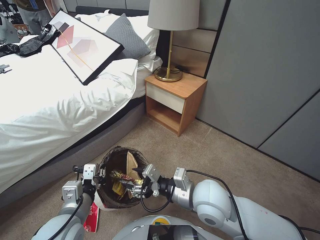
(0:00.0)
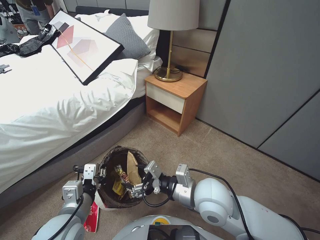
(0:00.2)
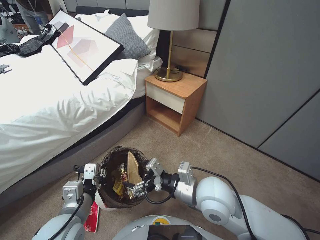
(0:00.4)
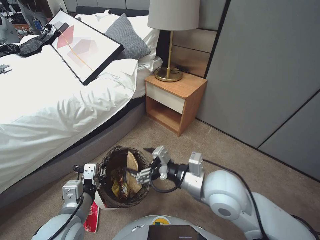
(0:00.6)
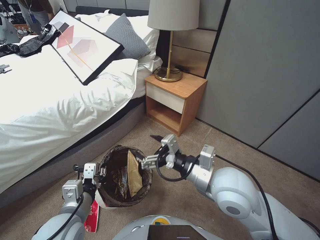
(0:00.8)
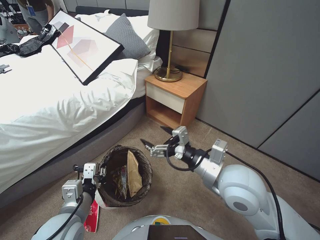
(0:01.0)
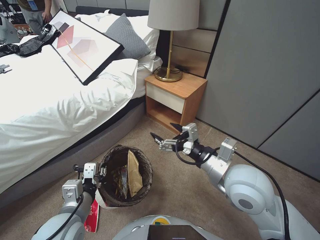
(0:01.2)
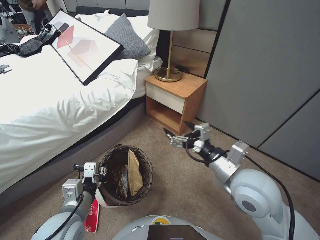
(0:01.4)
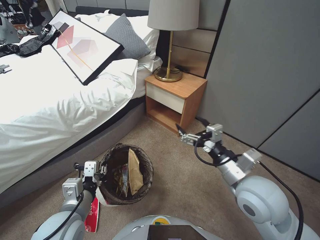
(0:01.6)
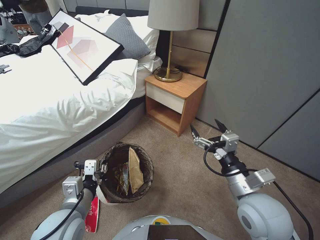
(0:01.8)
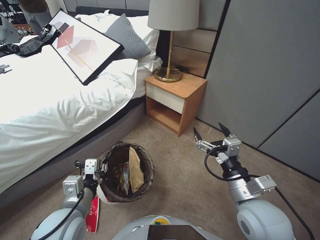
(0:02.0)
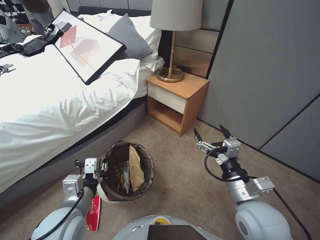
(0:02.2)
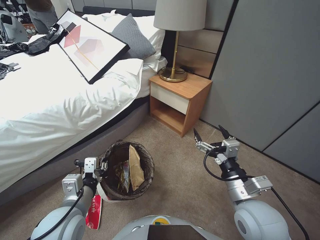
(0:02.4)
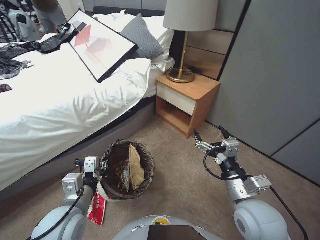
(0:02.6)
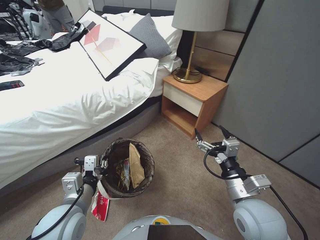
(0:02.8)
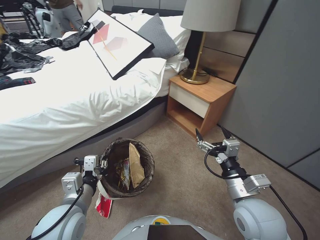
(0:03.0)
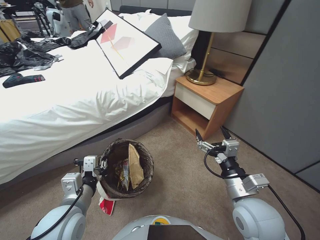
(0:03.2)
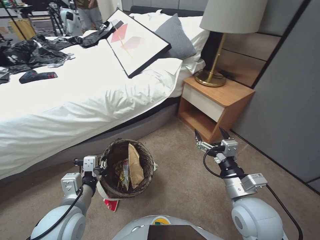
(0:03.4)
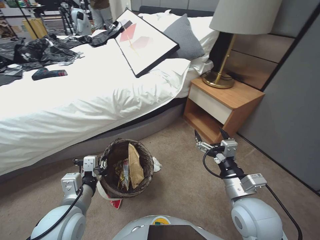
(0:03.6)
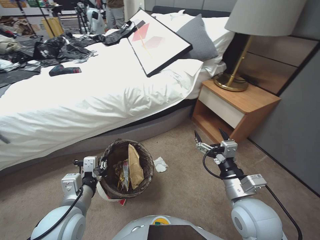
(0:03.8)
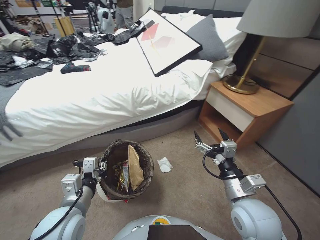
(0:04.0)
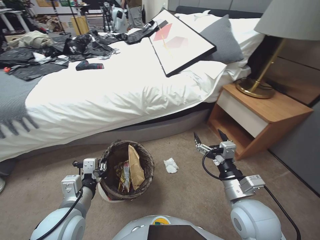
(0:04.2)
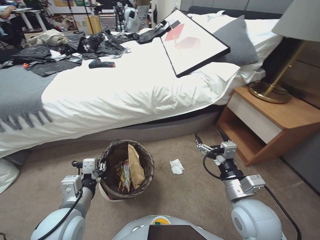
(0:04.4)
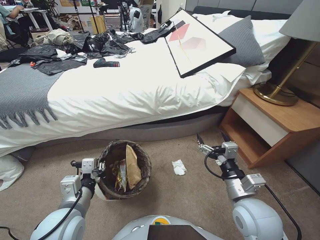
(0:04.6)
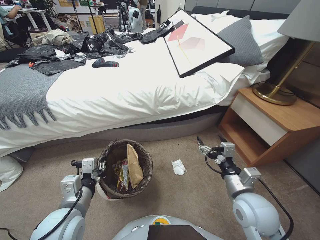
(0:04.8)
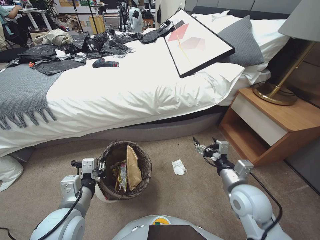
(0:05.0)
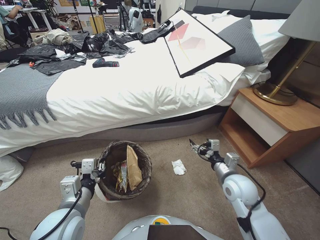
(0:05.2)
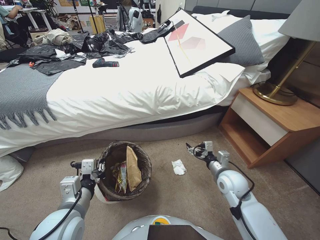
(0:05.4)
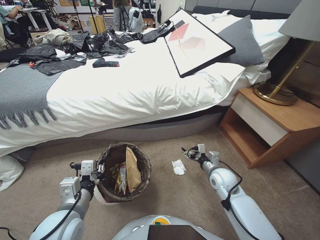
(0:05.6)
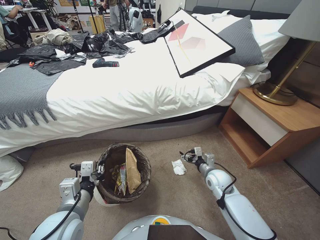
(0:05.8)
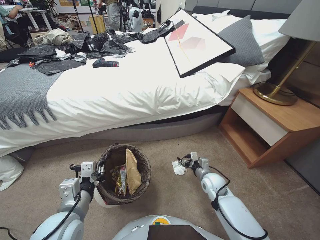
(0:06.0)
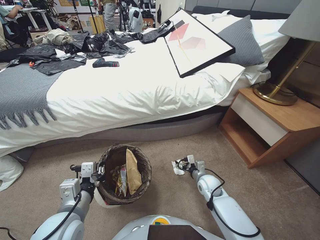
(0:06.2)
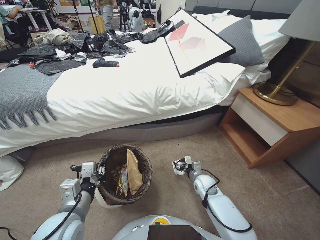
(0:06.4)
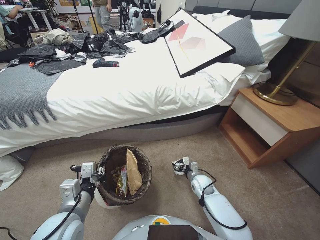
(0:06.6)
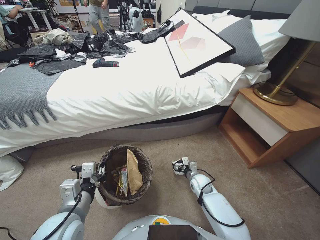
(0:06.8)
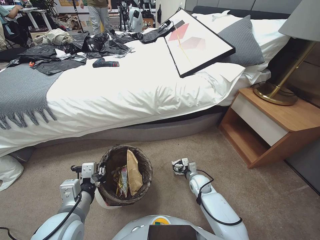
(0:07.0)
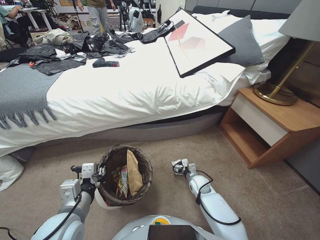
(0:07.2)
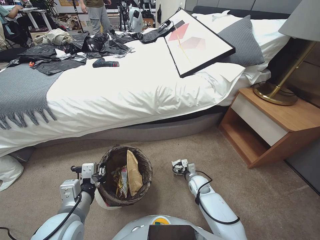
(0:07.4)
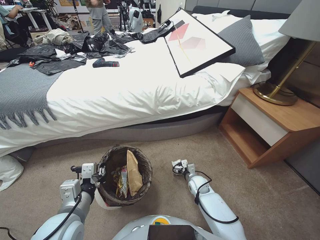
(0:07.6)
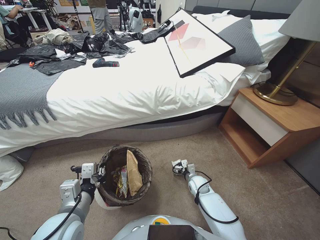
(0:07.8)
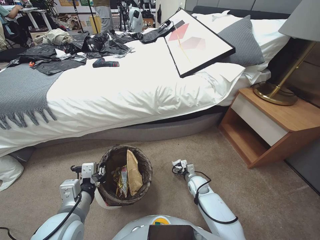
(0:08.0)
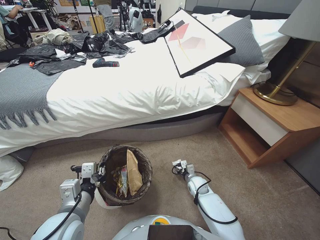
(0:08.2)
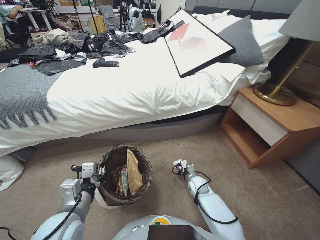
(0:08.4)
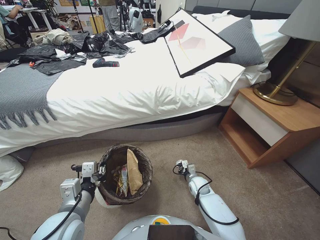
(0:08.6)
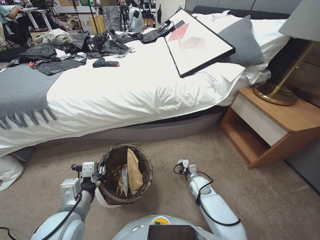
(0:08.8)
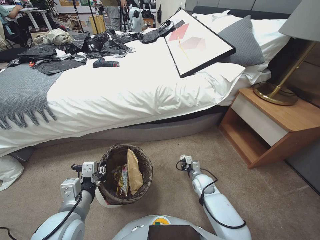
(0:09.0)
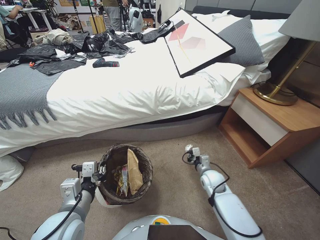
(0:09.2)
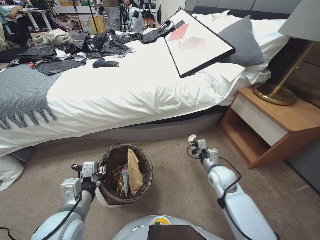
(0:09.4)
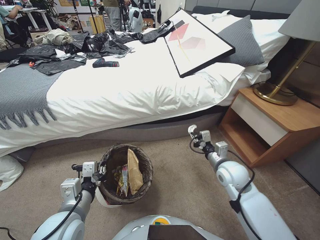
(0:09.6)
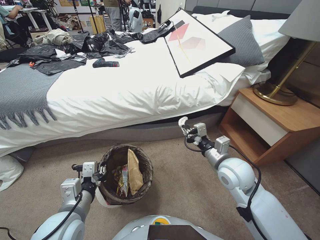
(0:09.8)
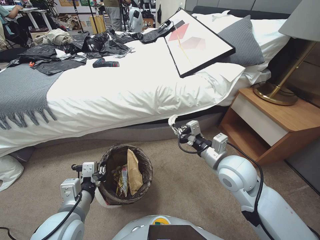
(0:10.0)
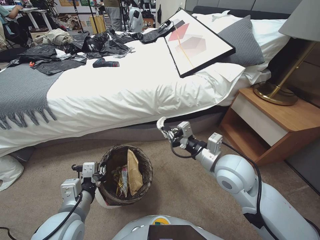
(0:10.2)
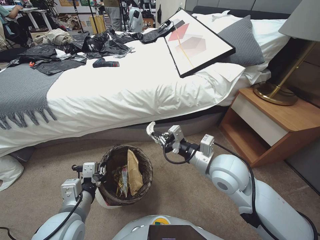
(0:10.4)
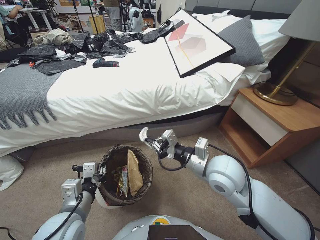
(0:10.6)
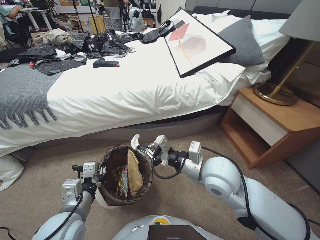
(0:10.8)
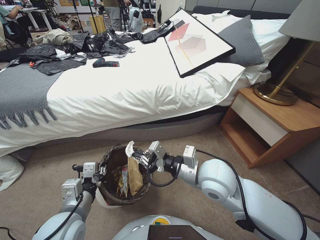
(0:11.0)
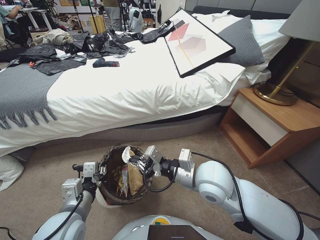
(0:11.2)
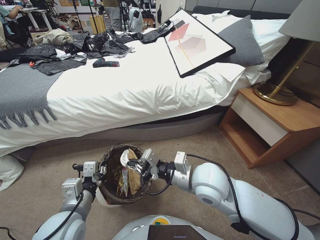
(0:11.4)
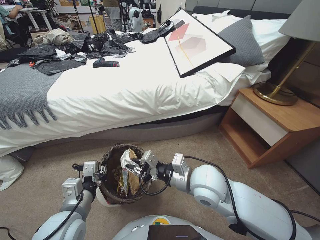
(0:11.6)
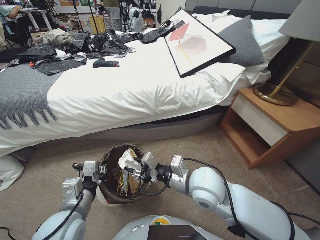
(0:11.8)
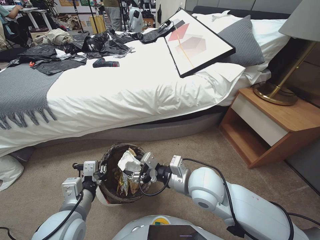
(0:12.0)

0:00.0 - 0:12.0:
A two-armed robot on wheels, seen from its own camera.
Task of the whole recording: Pick up the trash bin, then pick up the garbage from the floor and place it into the trash bin.
0:00.0 - 0:01.6: The right gripper is displaced to the right and upward by roughly 10 cm, and opens.
0:01.6 - 0:03.0: The right gripper heads downward, covering roughly 5 cm.
0:04.4 - 0:06.0: The right gripper moves downward and forward, some 25 cm.
0:06.0 - 0:07.6: The right gripper moves downward, about 10 cm.
0:07.6 - 0:09.0: The right gripper closes up.
0:09.0 - 0:10.4: The right gripper travels upward by about 35 cm.
0:10.4 - 0:12.0: The right gripper heads to the left, covering roughly 5 cm, and opens its fingers.

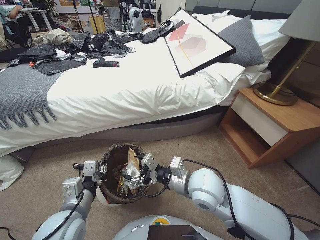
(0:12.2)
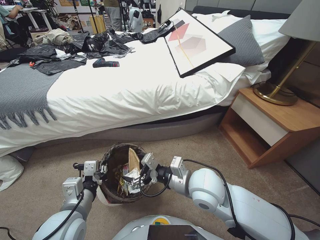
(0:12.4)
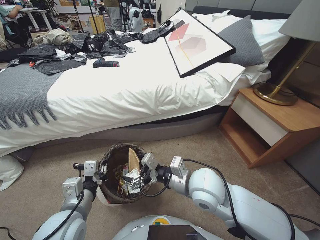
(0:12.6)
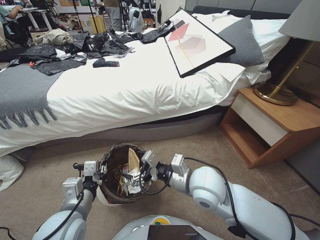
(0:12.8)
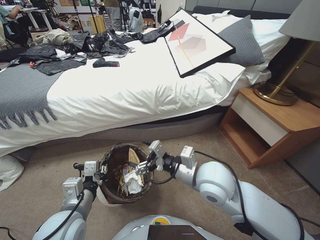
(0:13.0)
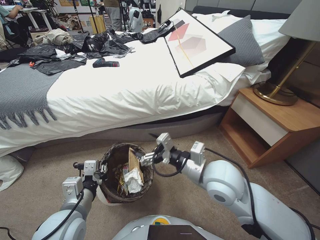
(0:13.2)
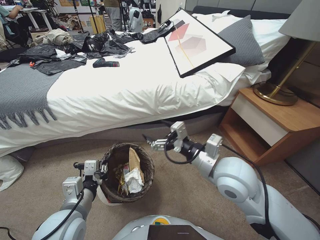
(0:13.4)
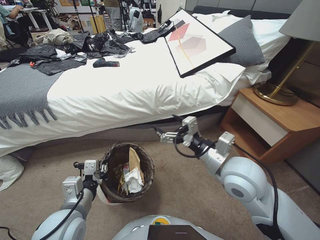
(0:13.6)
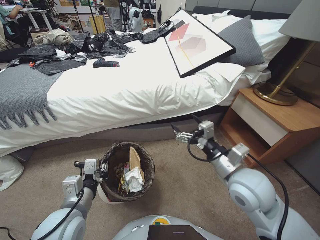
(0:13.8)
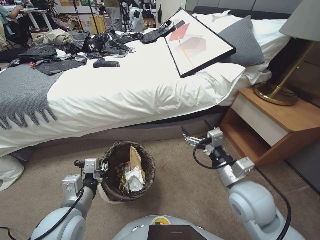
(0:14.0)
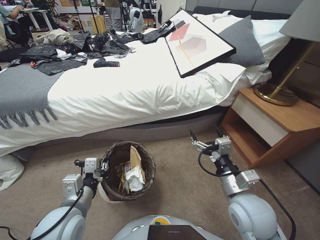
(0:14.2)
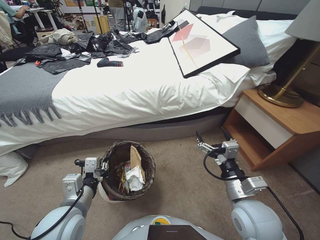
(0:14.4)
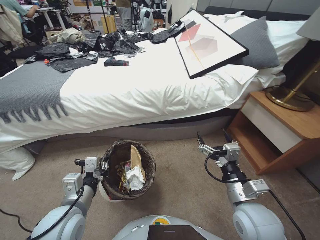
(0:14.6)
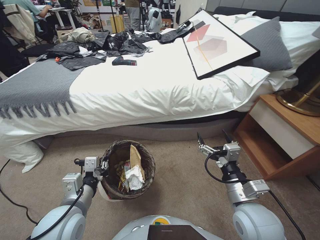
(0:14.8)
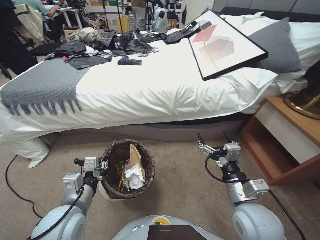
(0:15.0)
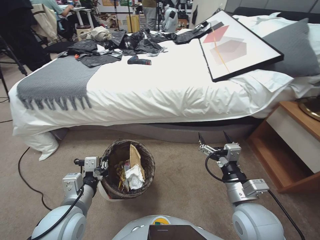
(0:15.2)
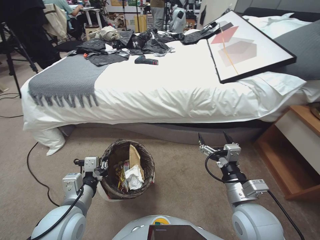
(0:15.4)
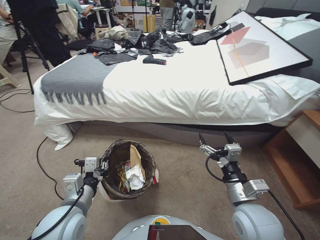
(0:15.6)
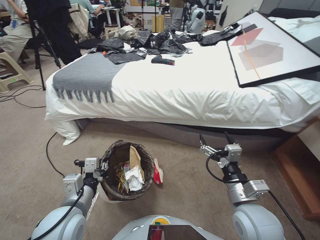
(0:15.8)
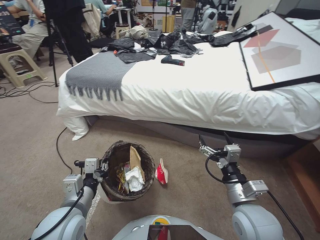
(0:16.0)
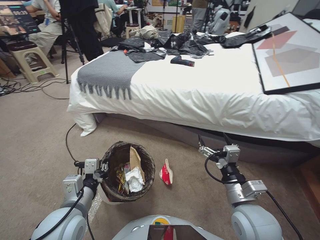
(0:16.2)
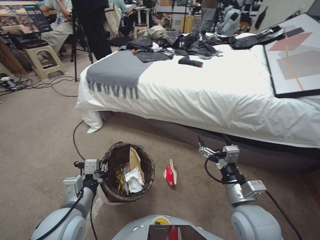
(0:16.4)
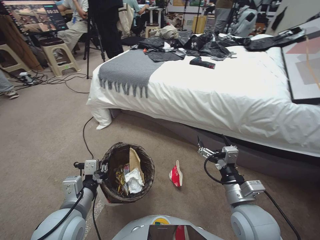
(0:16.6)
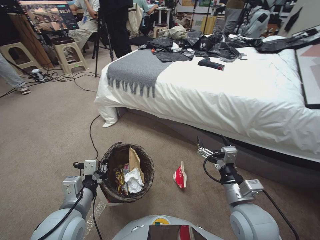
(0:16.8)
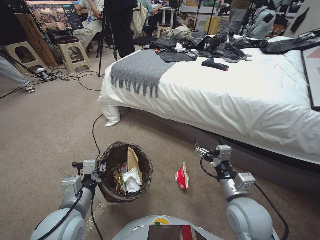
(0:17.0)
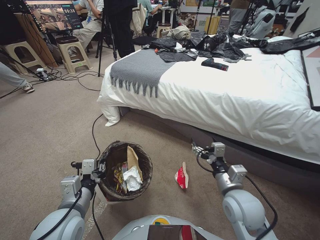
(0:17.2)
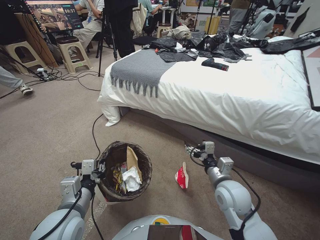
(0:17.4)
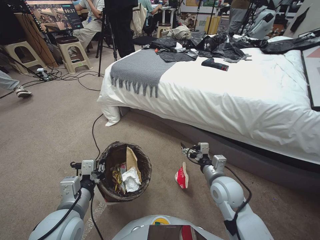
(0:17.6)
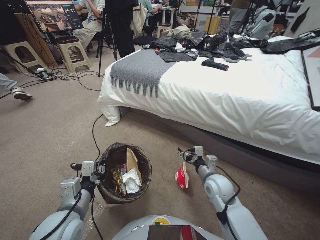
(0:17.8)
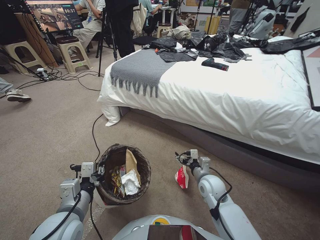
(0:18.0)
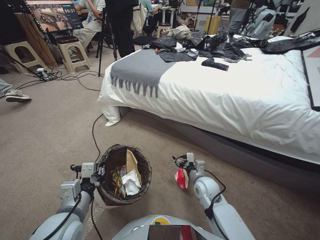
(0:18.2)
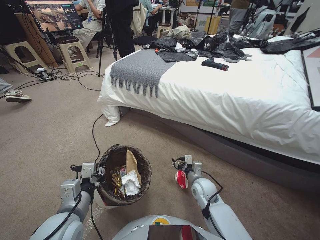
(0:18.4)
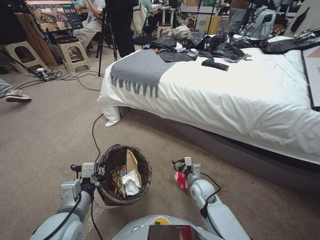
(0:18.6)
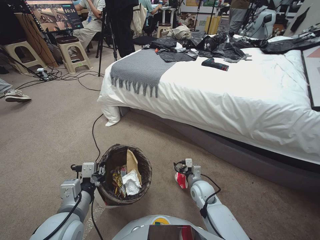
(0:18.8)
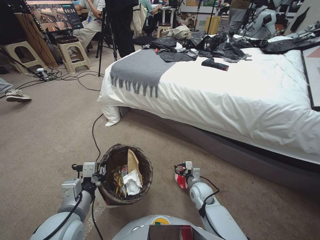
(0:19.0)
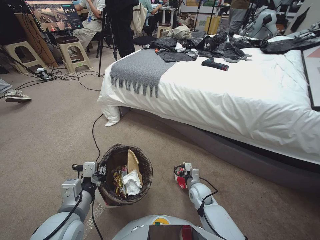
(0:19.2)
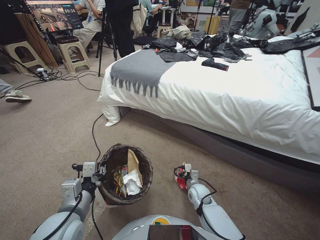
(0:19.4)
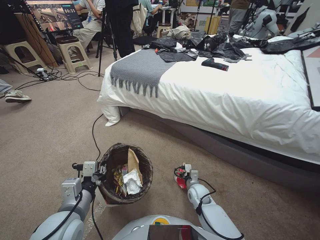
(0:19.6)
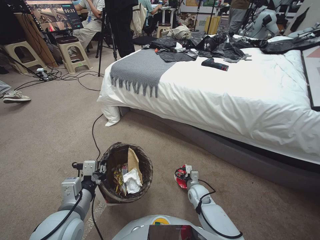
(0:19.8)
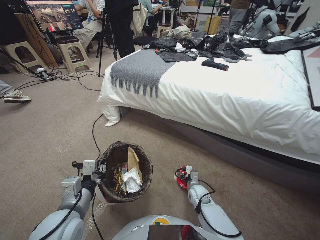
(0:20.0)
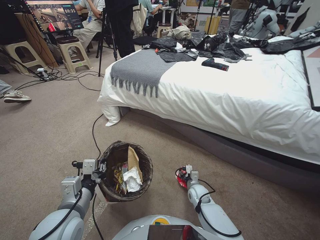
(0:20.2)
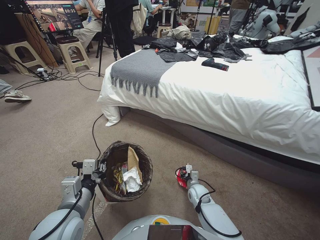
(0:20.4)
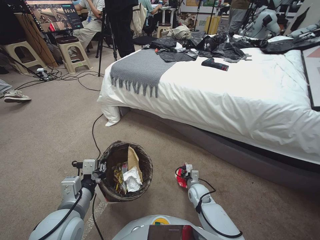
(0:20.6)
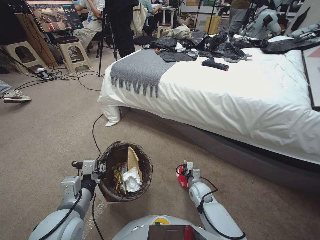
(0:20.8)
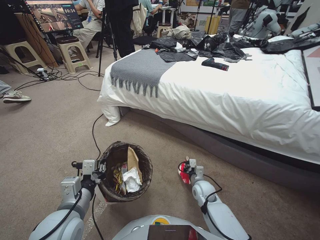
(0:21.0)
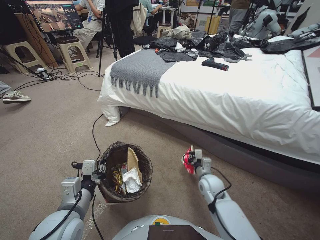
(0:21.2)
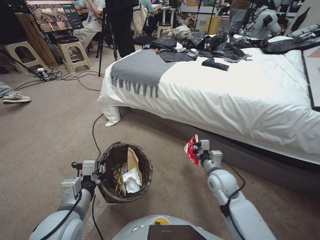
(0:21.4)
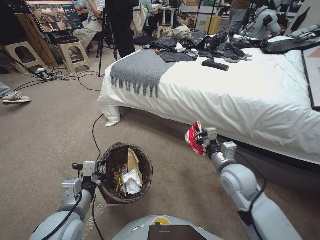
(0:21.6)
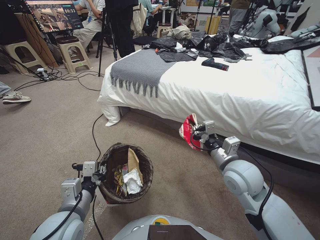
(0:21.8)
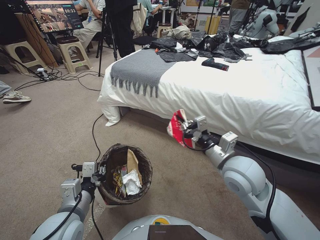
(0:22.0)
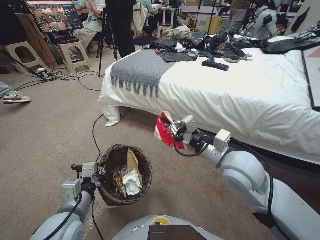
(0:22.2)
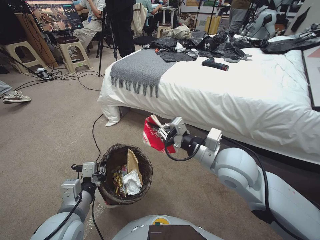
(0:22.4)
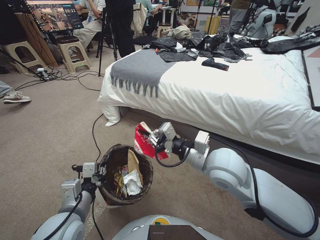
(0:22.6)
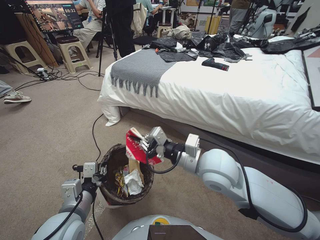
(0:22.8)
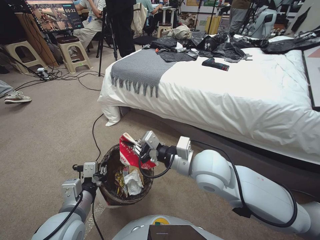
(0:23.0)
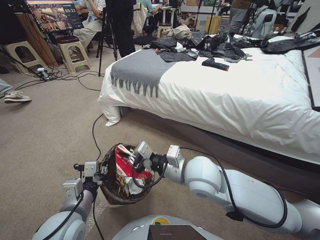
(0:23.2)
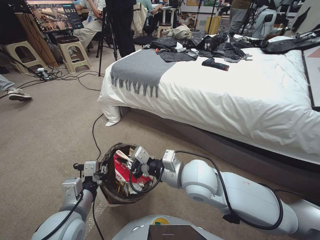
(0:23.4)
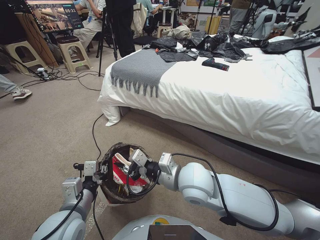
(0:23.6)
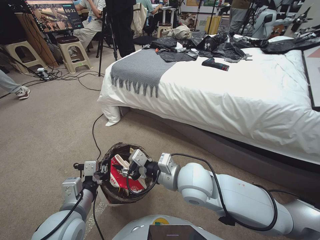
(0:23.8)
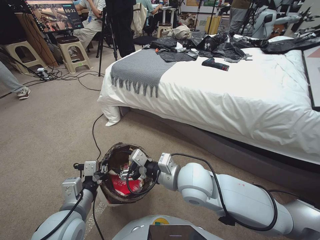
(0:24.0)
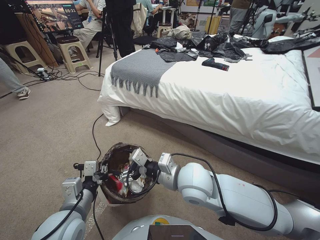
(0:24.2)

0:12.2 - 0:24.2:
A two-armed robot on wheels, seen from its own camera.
Task of the whole recording: Pick up the trash bin, then pick up the garbage from the floor and place it into the trash bin.
0:12.2 - 0:13.8: The right gripper heads to the right, covering roughly 10 cm.
0:13.8 - 0:15.2: The right gripper goes roughly 10 cm downward and backward.
0:16.6 - 0:18.2: The right gripper is displaced downward and forward by about 20 cm.
0:18.2 - 0:19.8: The right gripper shifts about 10 cm downward.
0:19.8 - 0:21.2: The right gripper moves upward, about 10 cm, and closes.
0:21.2 - 0:22.6: The right gripper heads upward, covering about 30 cm.
0:22.6 - 0:24.2: The right gripper goes some 10 cm to the left and downward, and opens its fingers.
